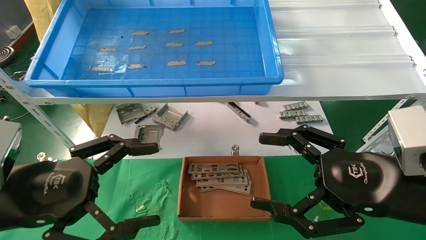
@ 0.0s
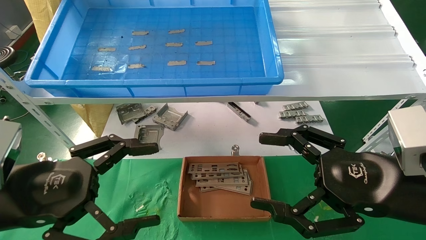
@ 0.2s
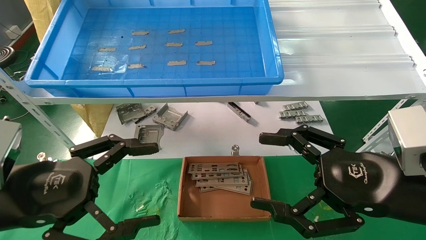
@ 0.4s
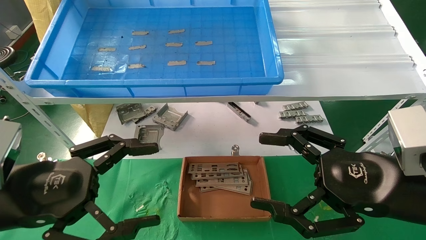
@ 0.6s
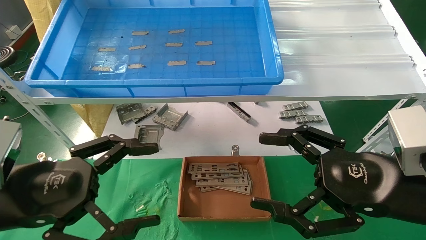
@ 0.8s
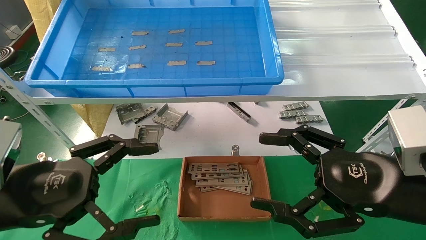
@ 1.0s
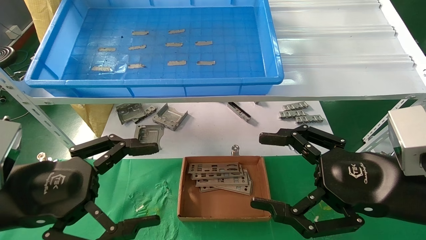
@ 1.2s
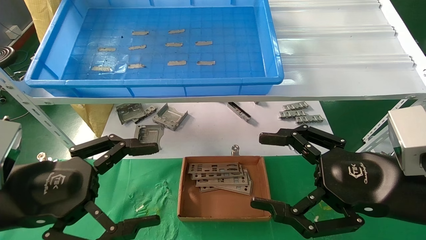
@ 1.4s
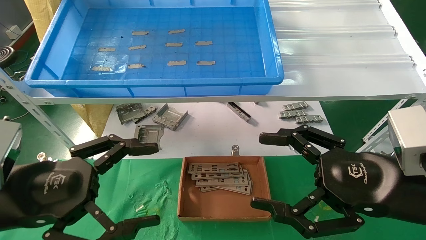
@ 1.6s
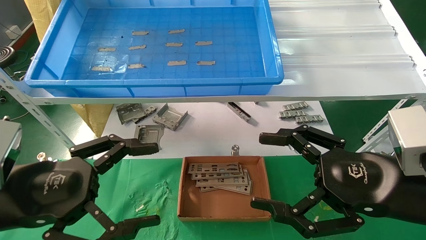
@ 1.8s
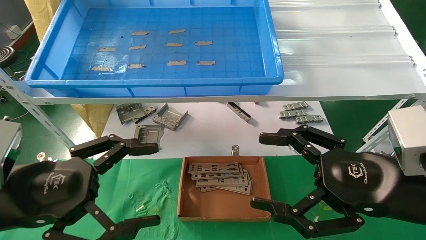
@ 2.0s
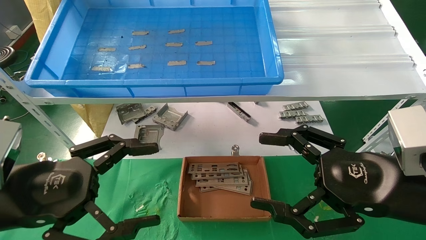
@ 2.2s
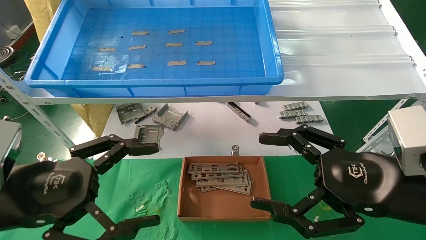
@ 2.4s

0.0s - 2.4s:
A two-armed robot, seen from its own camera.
Task of the whole recording: pick up the parts on the tray and put them in the cardboard box.
0.0s - 2.4s: Both grippers stay about where they are.
